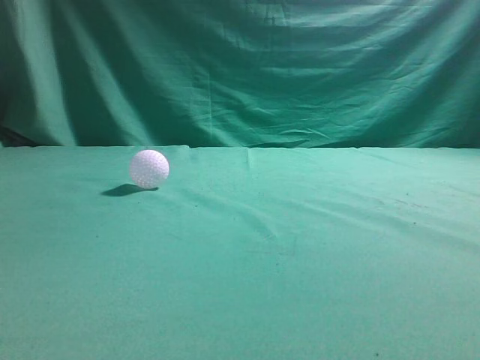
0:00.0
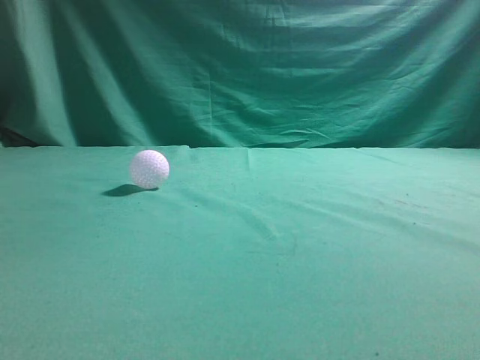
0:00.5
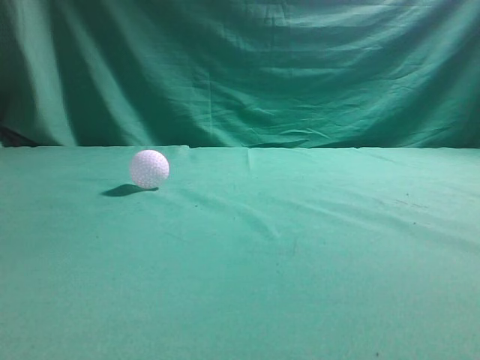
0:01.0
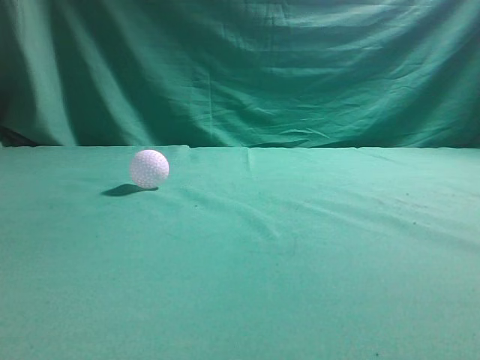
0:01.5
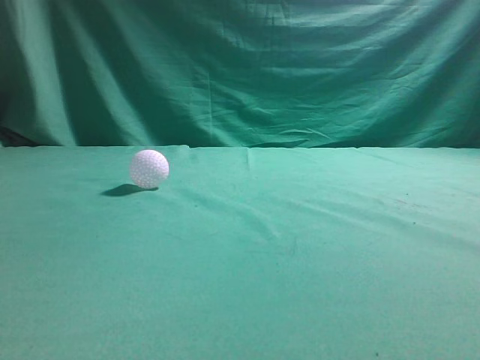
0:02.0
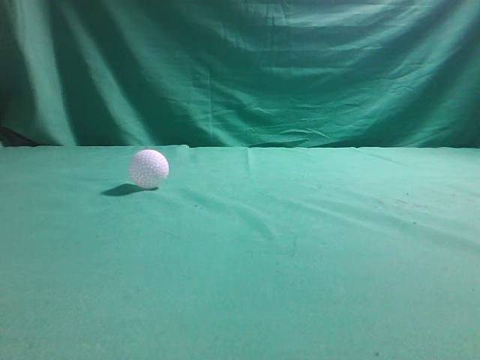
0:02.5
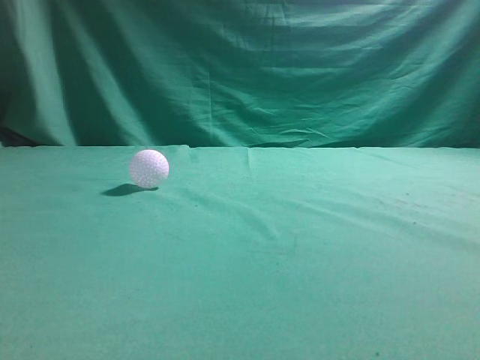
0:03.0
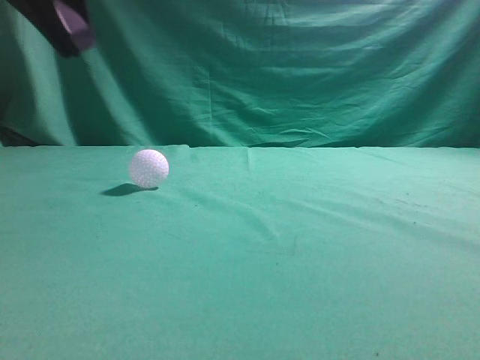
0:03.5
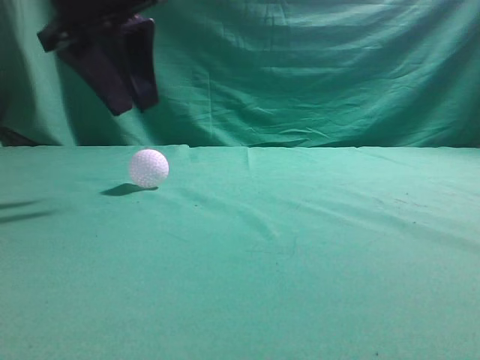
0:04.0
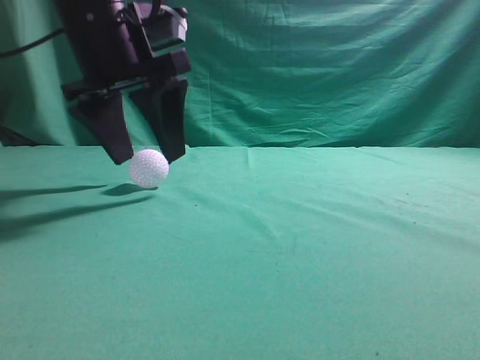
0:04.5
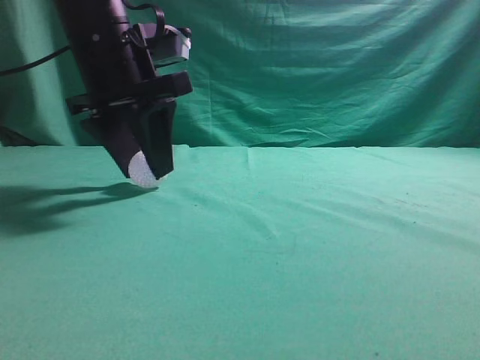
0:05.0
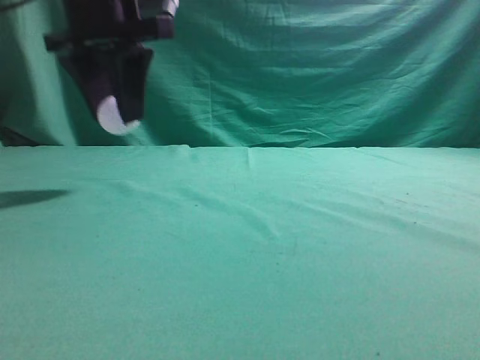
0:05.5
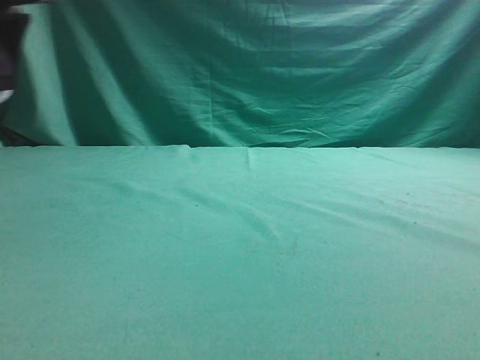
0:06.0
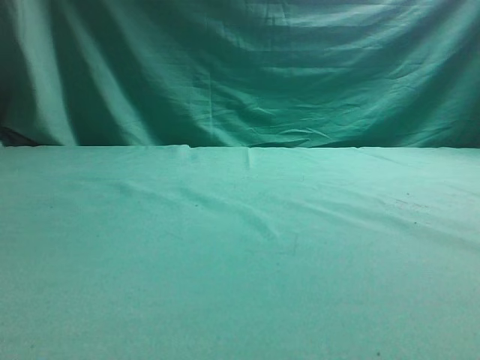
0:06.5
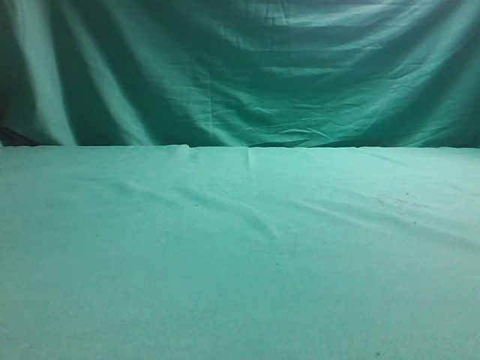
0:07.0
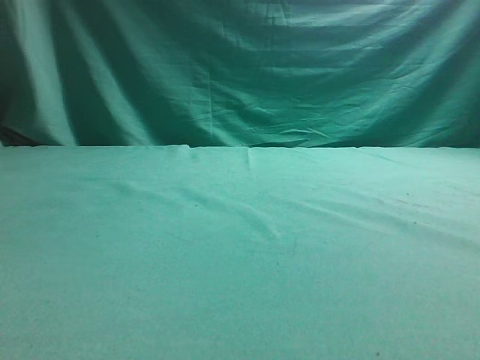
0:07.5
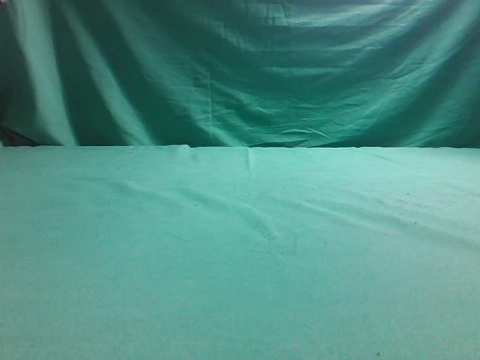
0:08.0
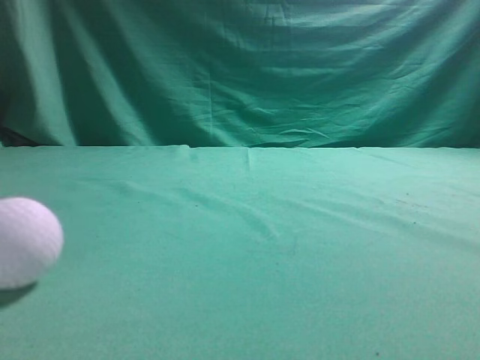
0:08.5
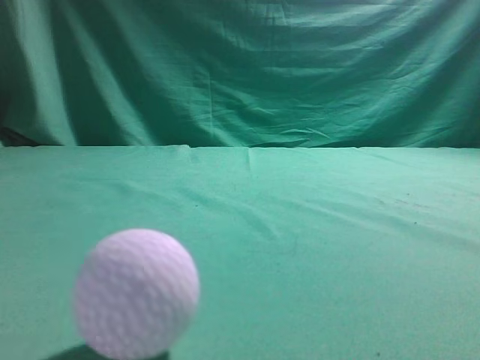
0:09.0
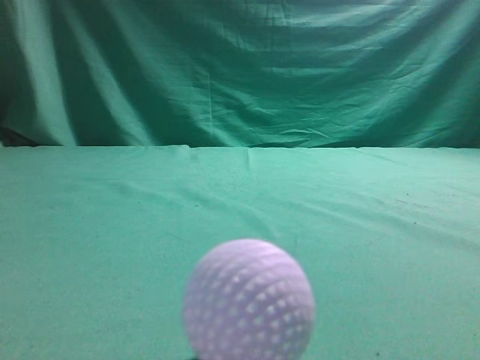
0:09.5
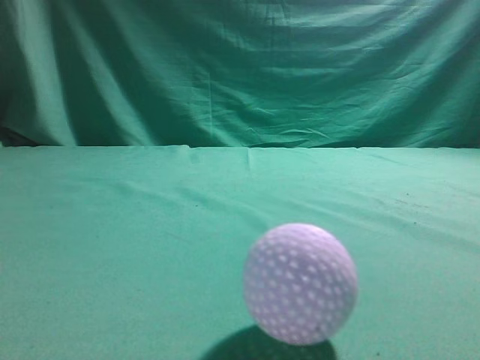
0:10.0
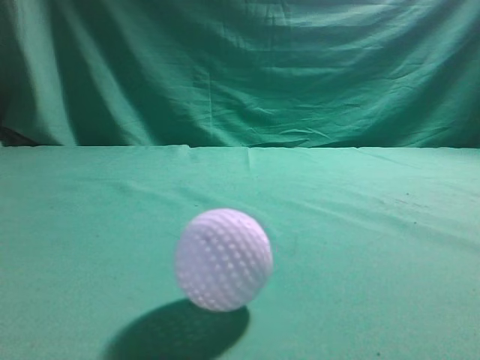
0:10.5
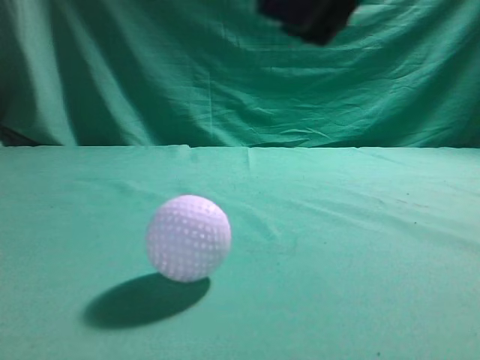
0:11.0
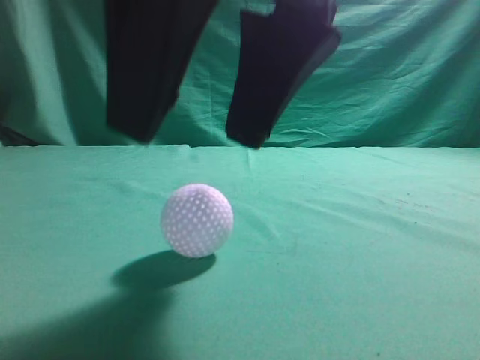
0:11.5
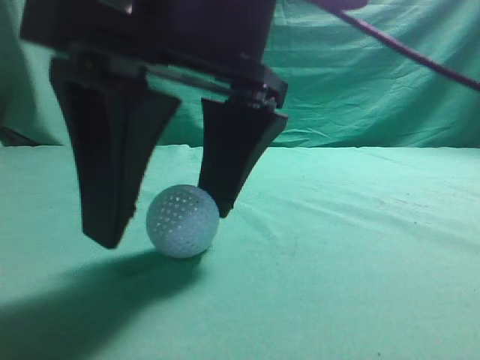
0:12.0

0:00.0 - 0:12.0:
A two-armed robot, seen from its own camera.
Task of the whole recording: pick up the ball and place it on the plate, then pick up the ball from the plate and put it in the center of the table.
Step, 0:00.0 - 0:05.0: Grab the spherical object with your left arm.
Step, 0:05.5 - 0:07.5: Place the sphere on the white object.
0:02.0 - 0:04.0: The left gripper heads forward and to the right, covering roughly 30 cm, and opens up.
0:04.0 - 0:06.0: The left gripper heads to the left, covering approximately 10 cm, and opens and closes again.
0:06.0 - 0:08.0: The left gripper is displaced to the left and upward by about 10 cm, and closes up.
0:08.0 - 0:10.0: The right gripper shifts about 10 cm upward; the left gripper moves backward, roughly 25 cm.
0:10.0 - 0:12.0: The right gripper moves to the left and downward, some 30 cm, and opens its fingers.

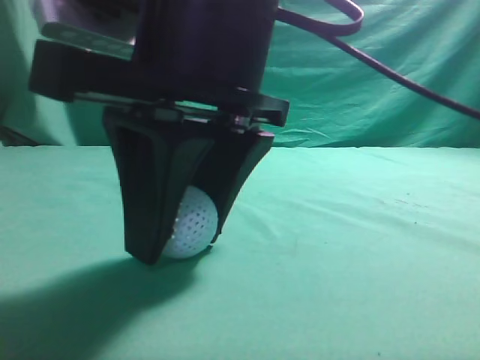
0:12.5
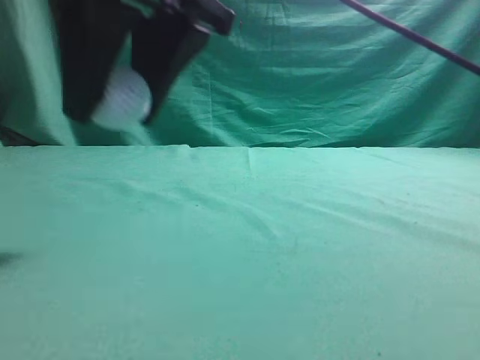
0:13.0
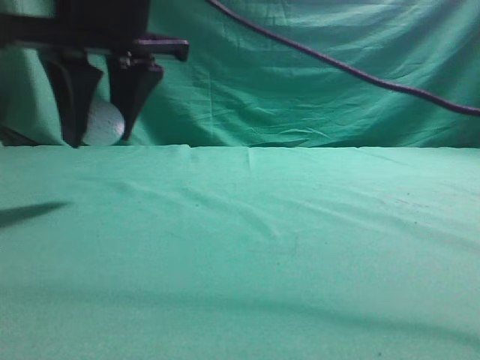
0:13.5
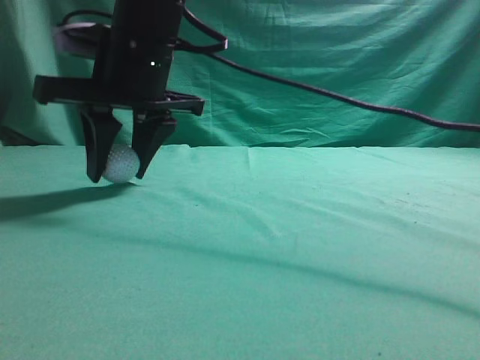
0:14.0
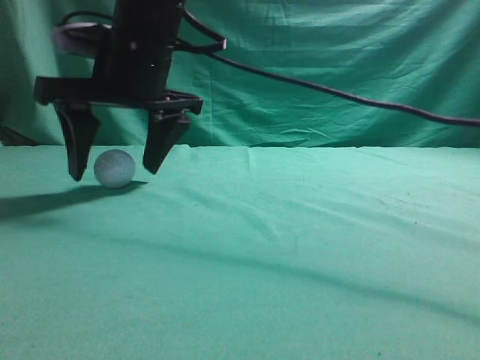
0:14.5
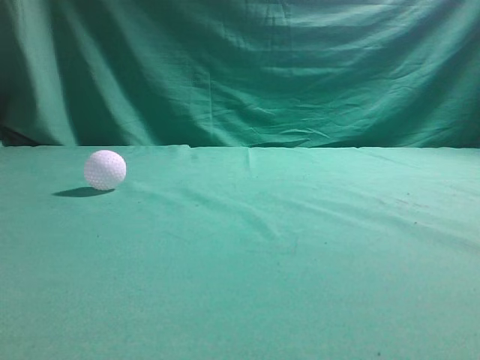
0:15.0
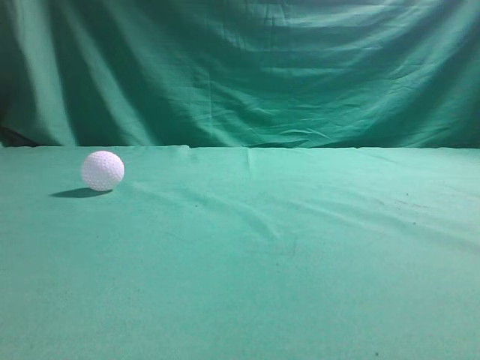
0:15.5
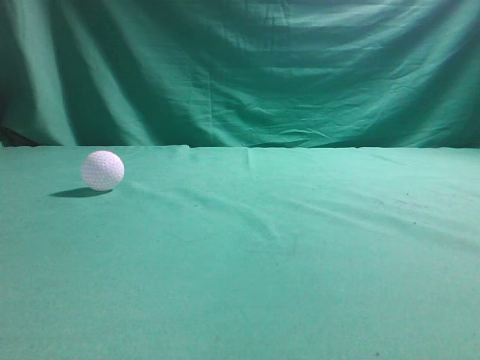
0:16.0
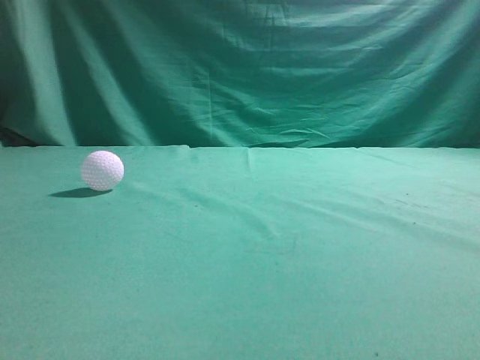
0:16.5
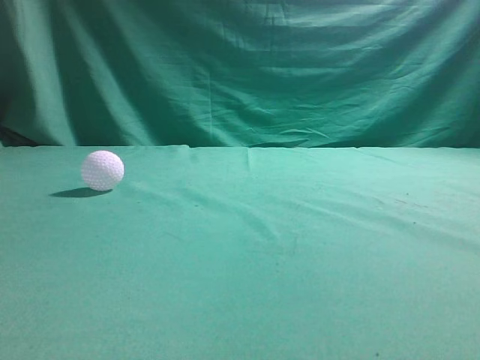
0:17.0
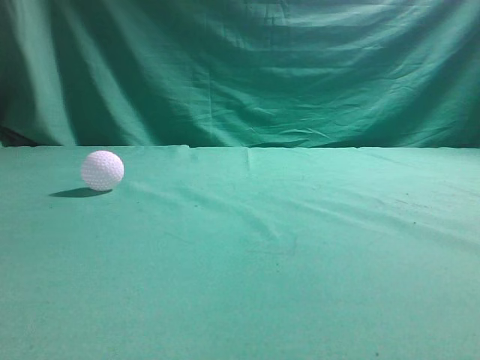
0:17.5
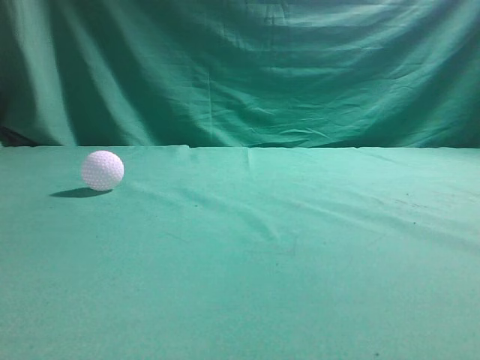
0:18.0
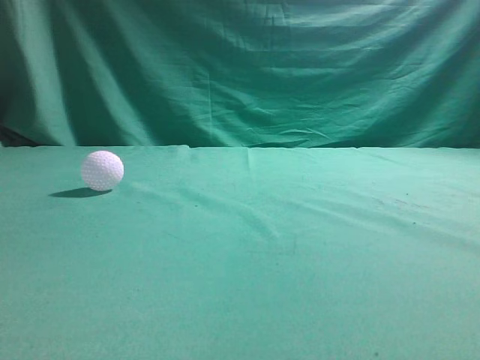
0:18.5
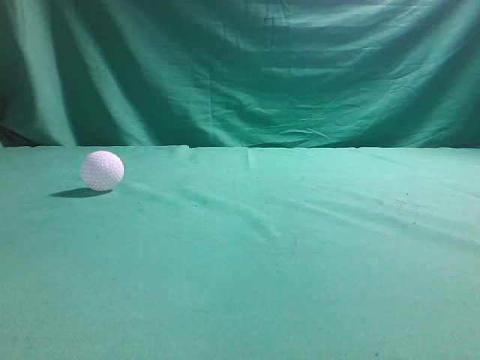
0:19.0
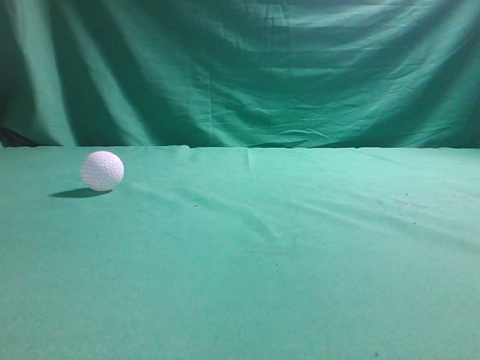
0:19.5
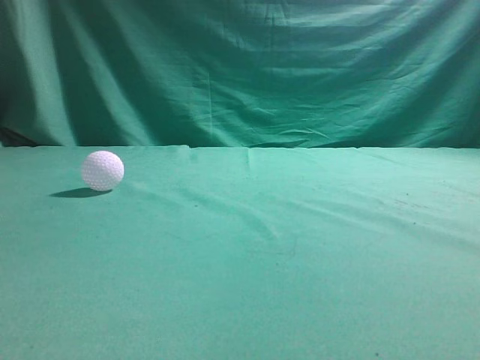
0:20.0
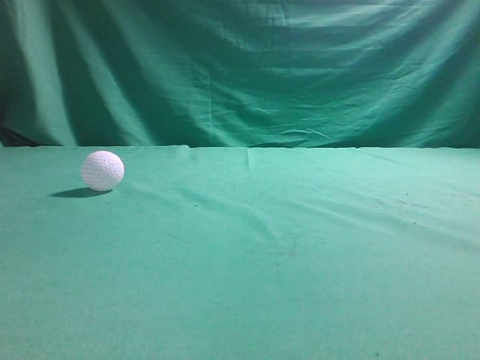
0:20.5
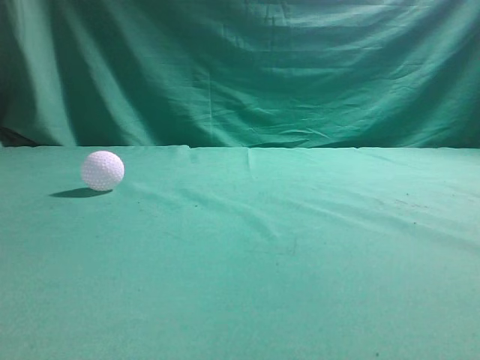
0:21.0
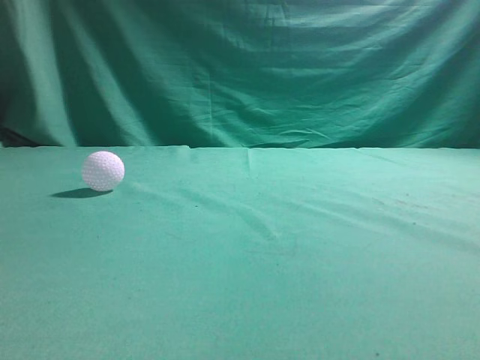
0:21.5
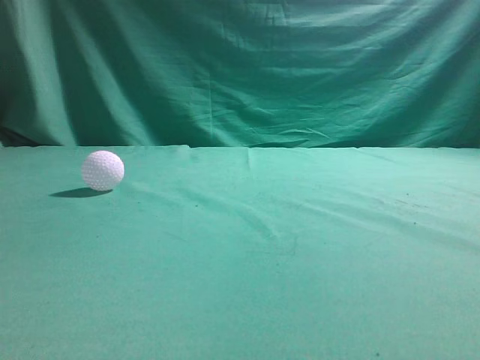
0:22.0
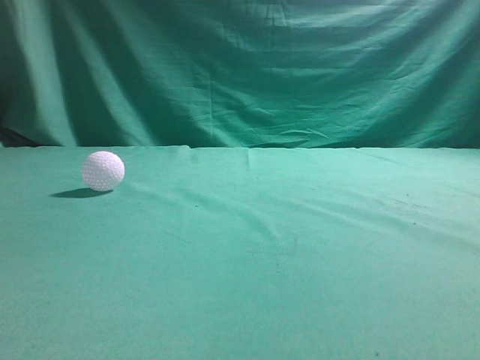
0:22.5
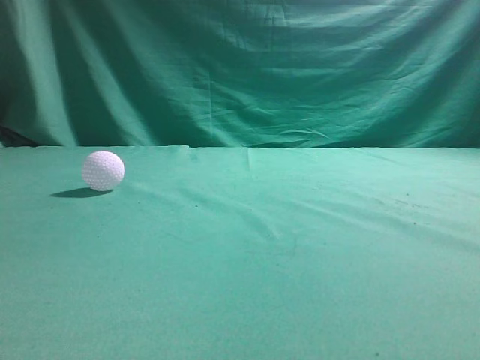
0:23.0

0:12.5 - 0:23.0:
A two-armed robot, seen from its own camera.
Task of the whole recording: pick up the ball and place it on the plate, then pick up the ball from the plate and put it in the center of the table.
Step, 0:13.0 - 0:14.5: Put the picked-up object on the table.
0:12.5 - 0:14.5: The right gripper travels forward and to the left by roughly 20 cm, and opens its fingers.
0:14.5 - 0:16.5: The right gripper heads to the right, backward and upward, covering roughly 50 cm, and closes its fingers. Meanwhile the left gripper goes about 10 cm downward and backward.

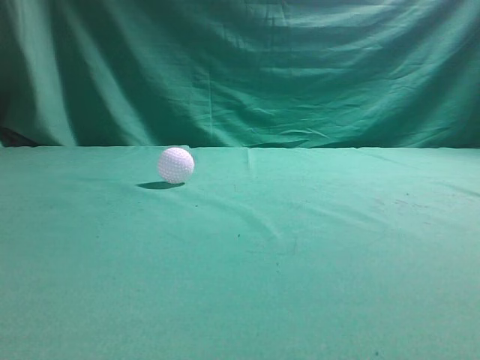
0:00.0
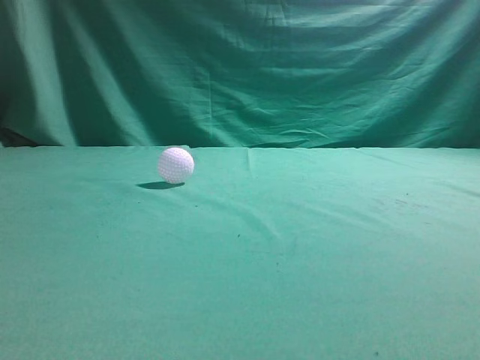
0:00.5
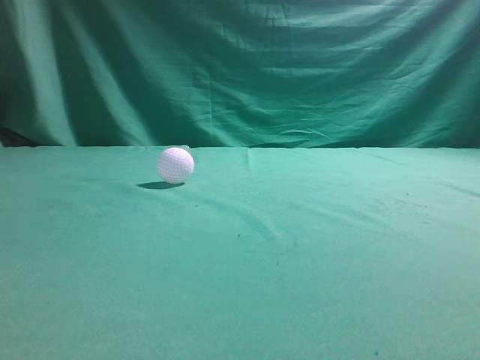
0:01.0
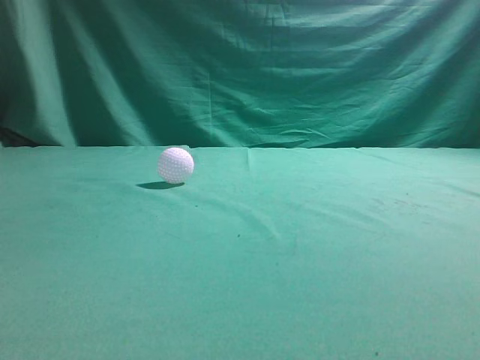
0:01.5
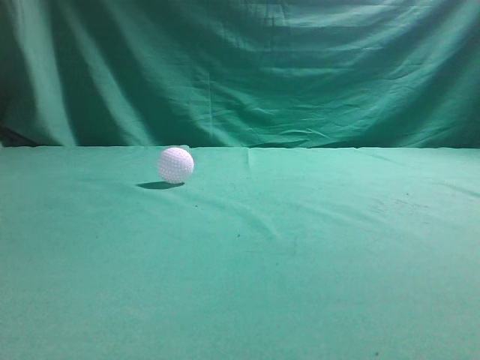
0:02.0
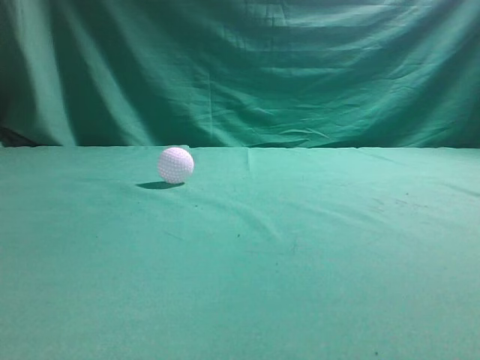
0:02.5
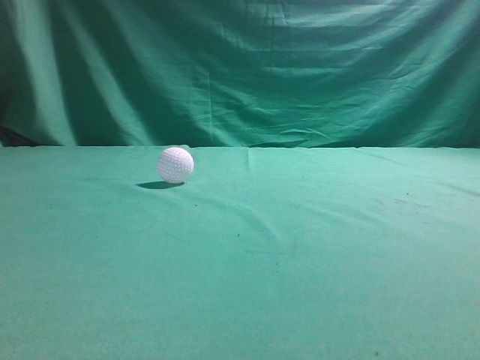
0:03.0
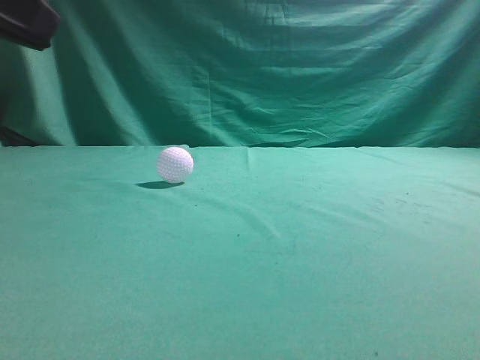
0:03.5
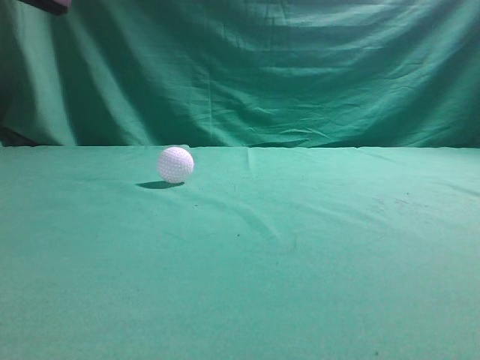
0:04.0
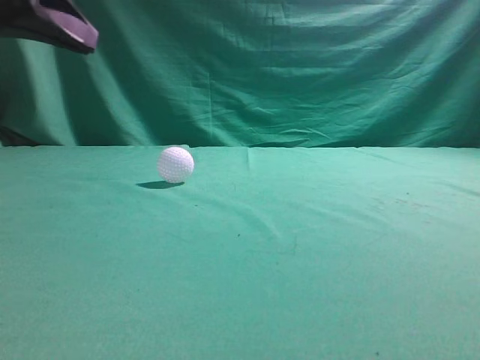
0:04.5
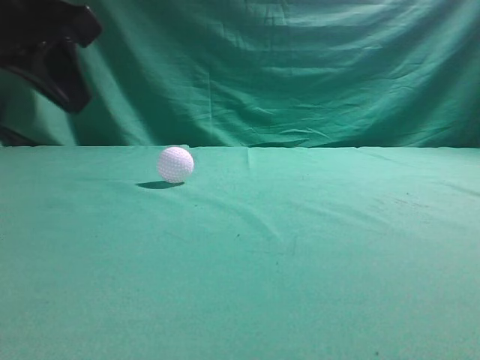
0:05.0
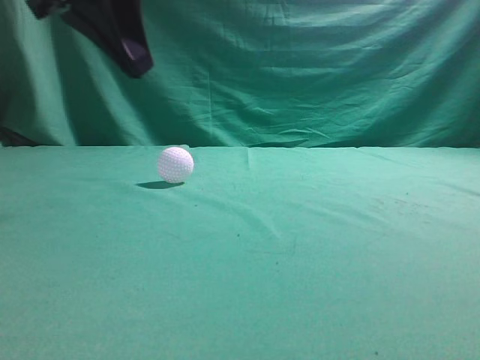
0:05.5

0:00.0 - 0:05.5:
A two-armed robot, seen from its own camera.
Task of the whole recording: pick up the ball and place it on the plate, then pick up the ball from the plate and put it in the center of the table.
0:02.0 - 0:03.5: The left gripper moves forward and to the right, some 15 cm.
0:03.5 - 0:05.5: The left gripper is displaced forward and to the right by some 15 cm.
